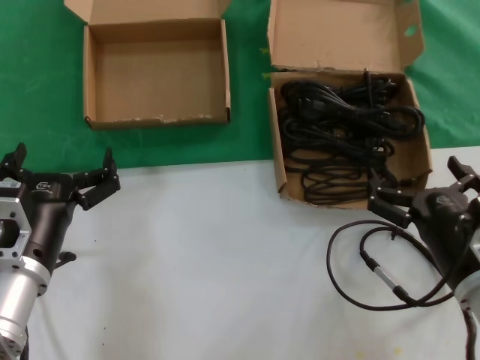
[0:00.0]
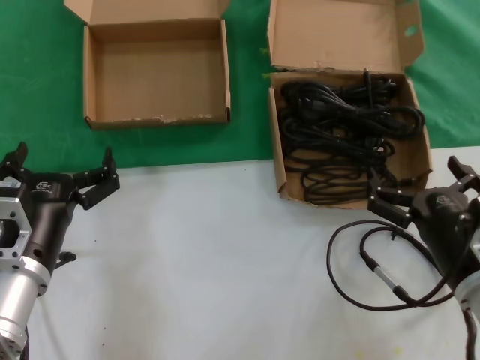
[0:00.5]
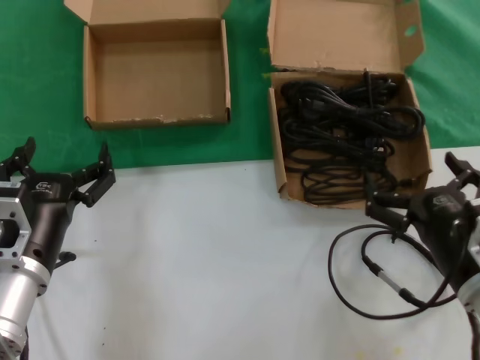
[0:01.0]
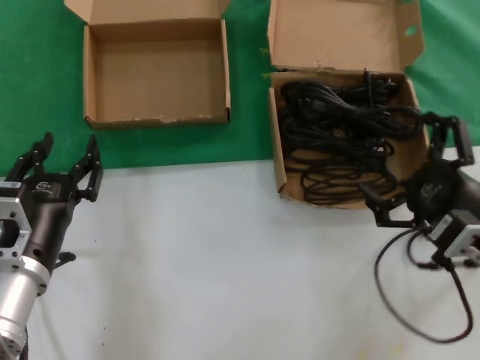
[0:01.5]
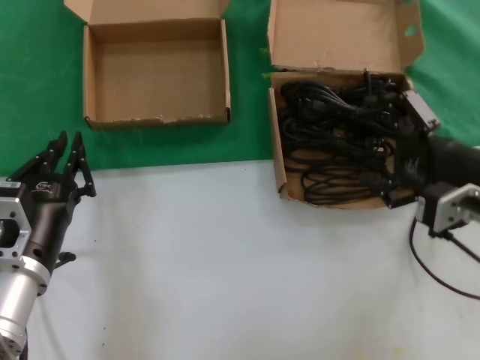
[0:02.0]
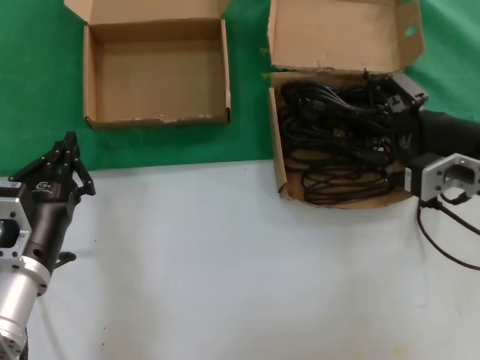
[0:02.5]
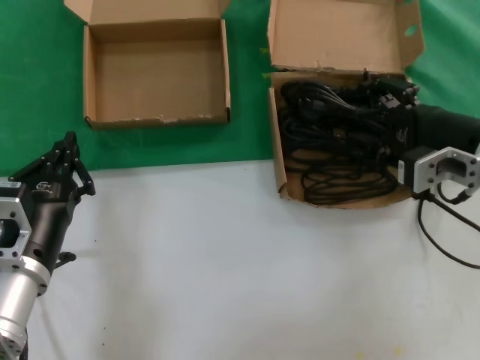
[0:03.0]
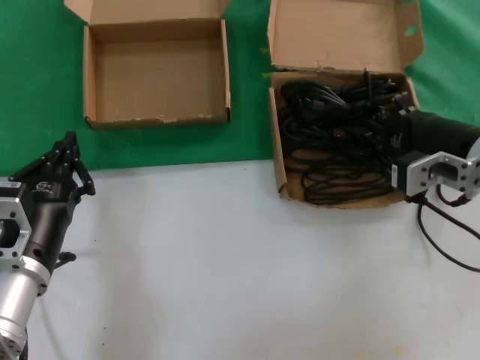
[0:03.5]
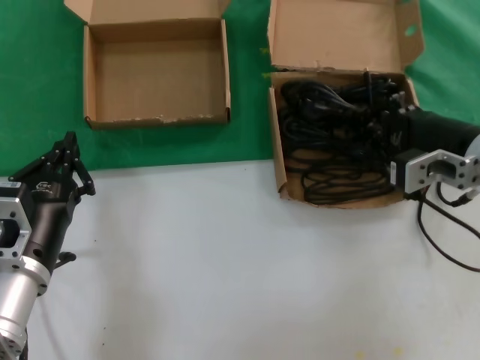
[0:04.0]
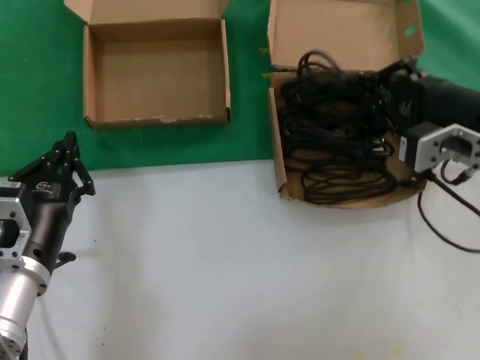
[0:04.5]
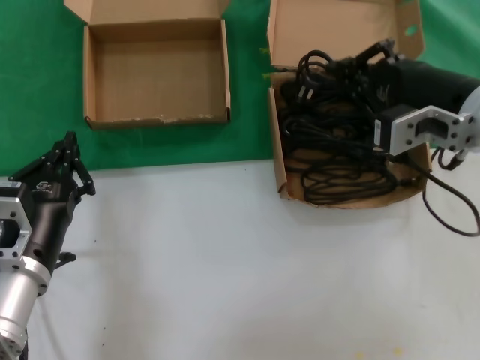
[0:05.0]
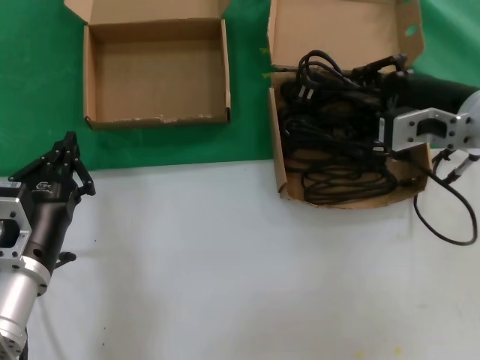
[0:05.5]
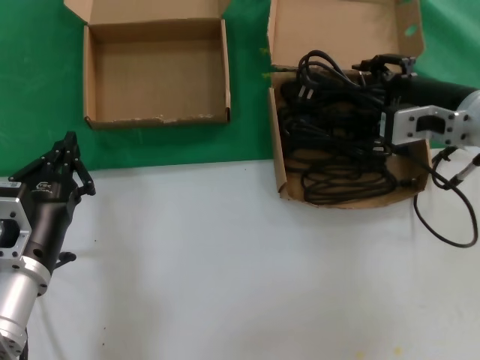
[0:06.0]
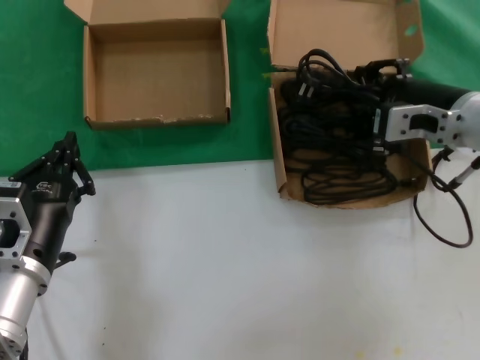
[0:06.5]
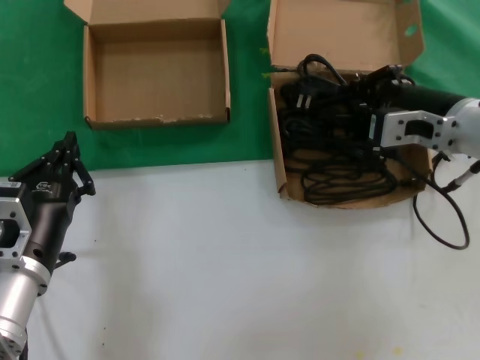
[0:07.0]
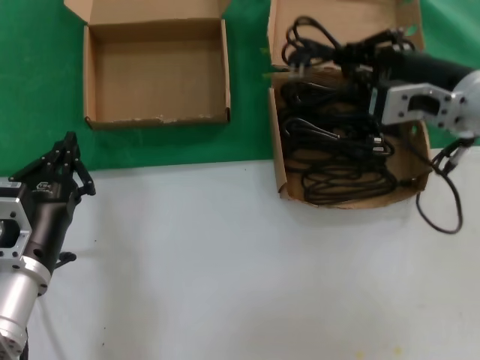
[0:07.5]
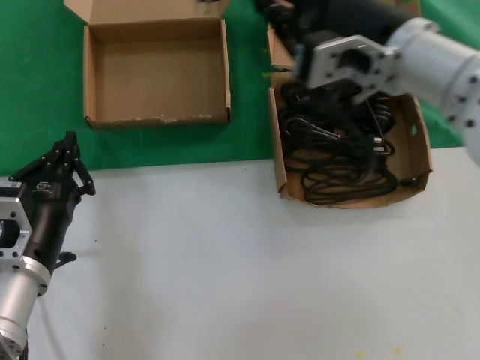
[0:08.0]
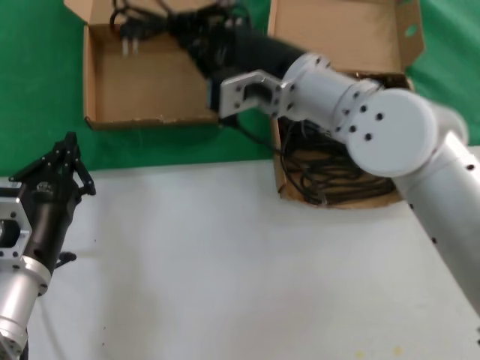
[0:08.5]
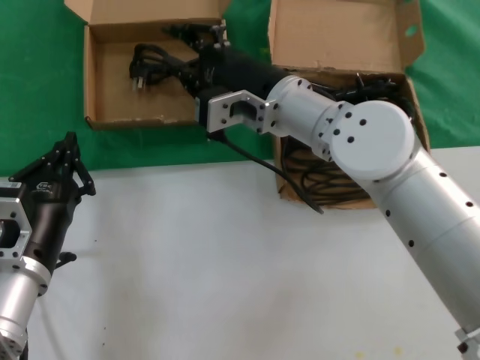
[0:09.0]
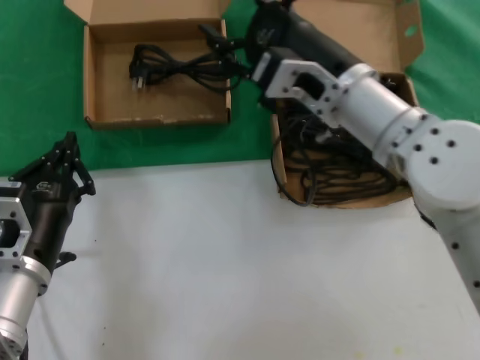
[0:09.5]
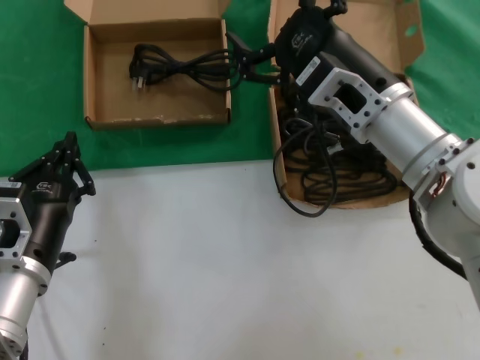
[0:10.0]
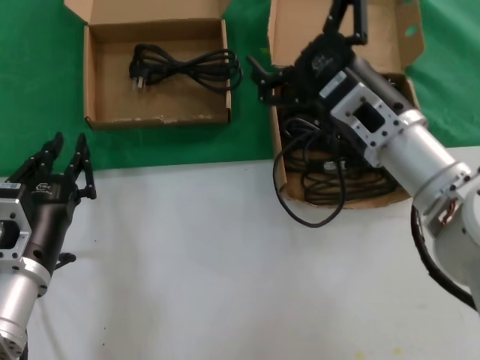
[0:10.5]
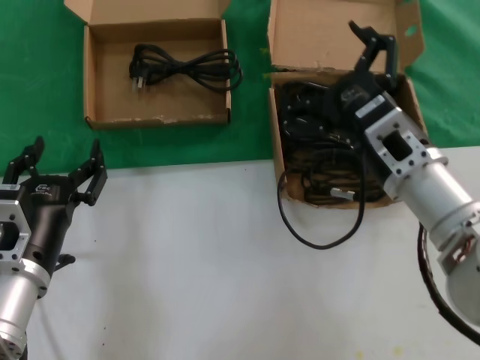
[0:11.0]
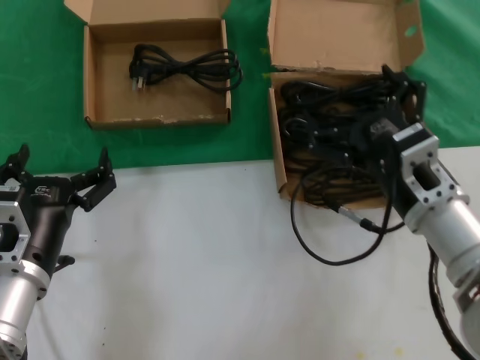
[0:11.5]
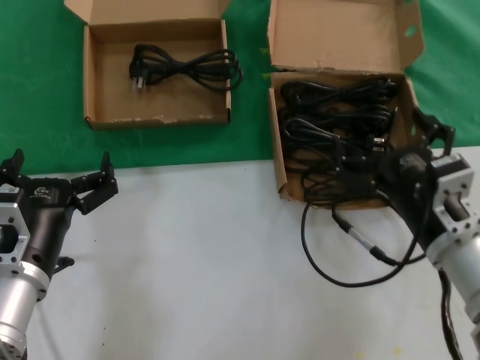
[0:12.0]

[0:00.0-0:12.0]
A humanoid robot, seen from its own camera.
Task of the whole recording: take the parts from the box containing them and put them into an empty box.
Step, 0:00.0 to 0:06.5: Grasp the data cable.
Step, 0:07.0 to 0:08.5: Place the data cable in the another box.
0:00.0 to 0:02.0: The right hand heads upward and forward, covering approximately 15 cm.
0:02.0 to 0:04.0: The right hand heads forward, covering about 5 cm.
0:06.0 to 0:08.0: The right hand moves to the left and upward, about 10 cm.
0:08.0 to 0:10.0: The right hand shifts some 10 cm downward, and goes to the left and returns, roughly 10 cm each way.
0:10.0 to 0:12.0: The right hand shifts some 15 cm downward, backward and to the right.

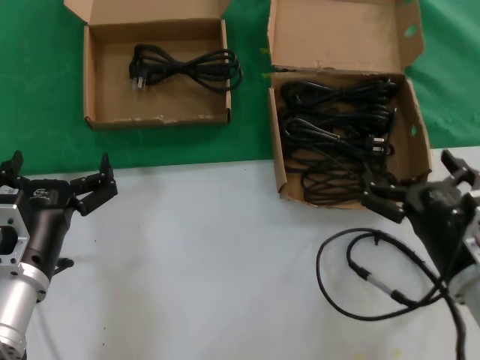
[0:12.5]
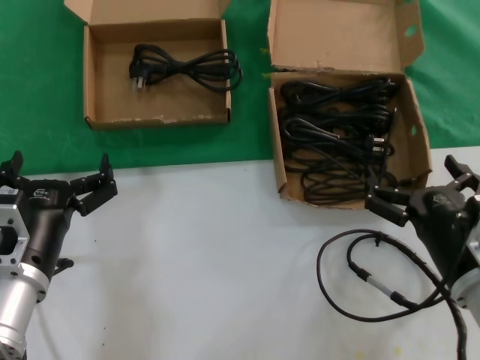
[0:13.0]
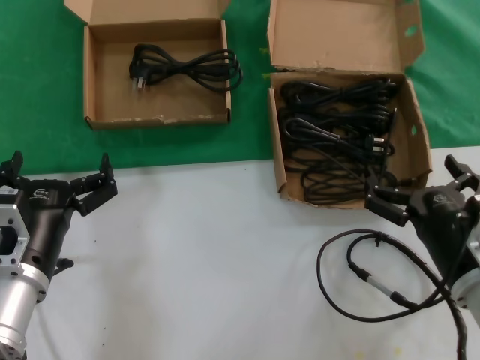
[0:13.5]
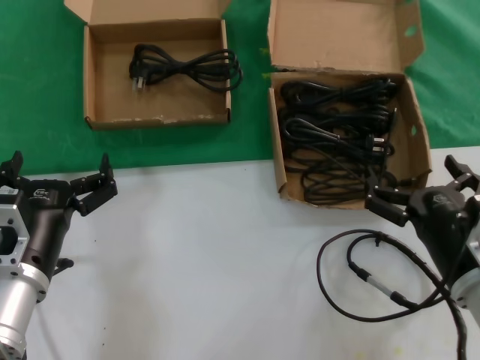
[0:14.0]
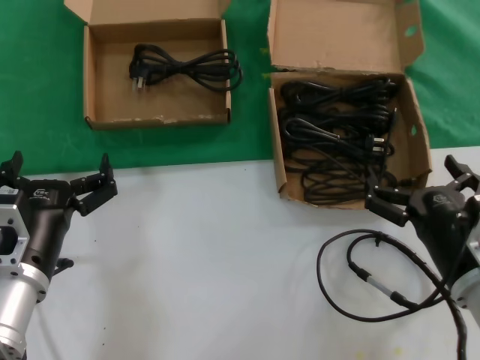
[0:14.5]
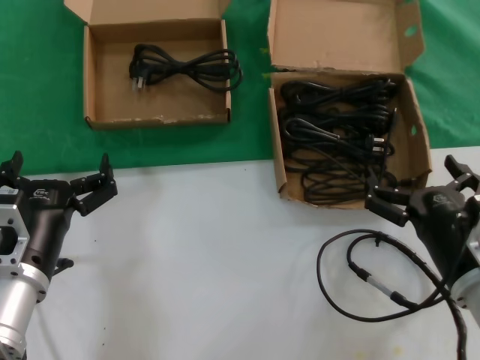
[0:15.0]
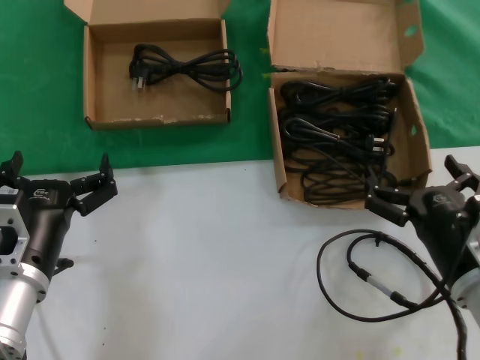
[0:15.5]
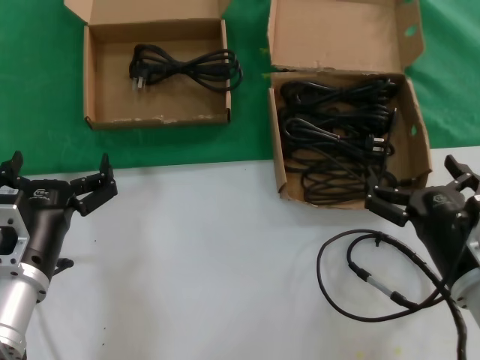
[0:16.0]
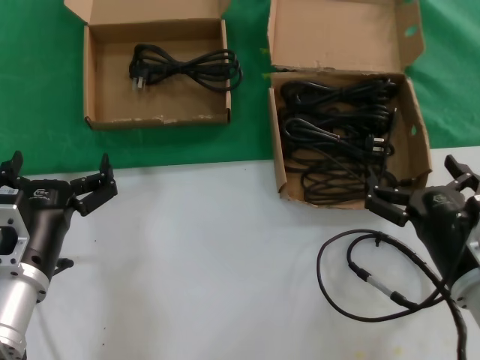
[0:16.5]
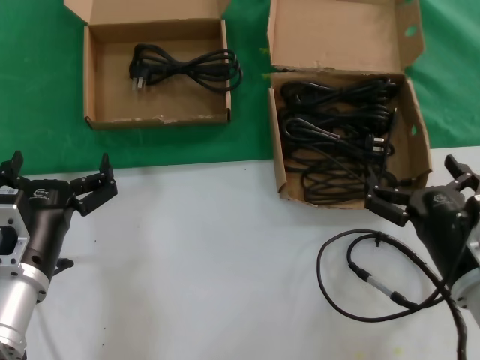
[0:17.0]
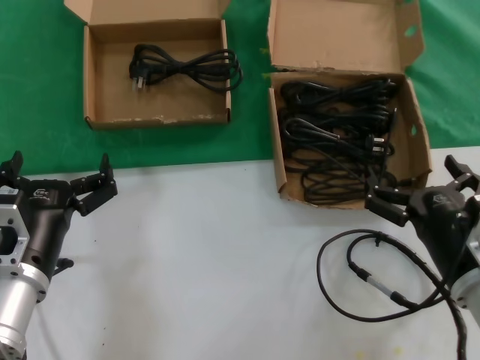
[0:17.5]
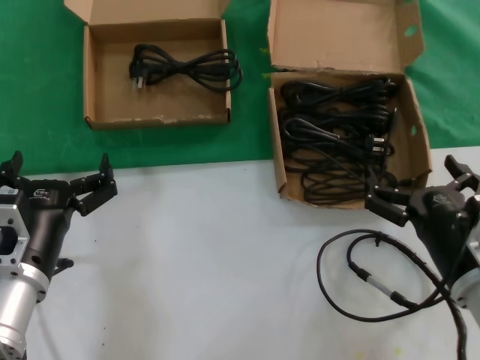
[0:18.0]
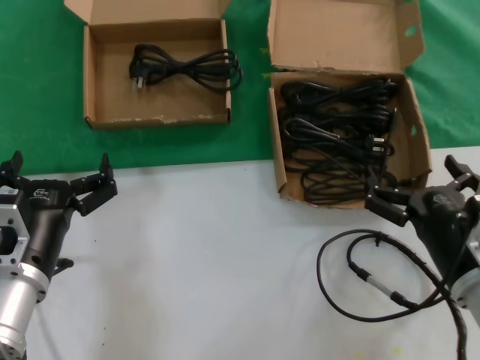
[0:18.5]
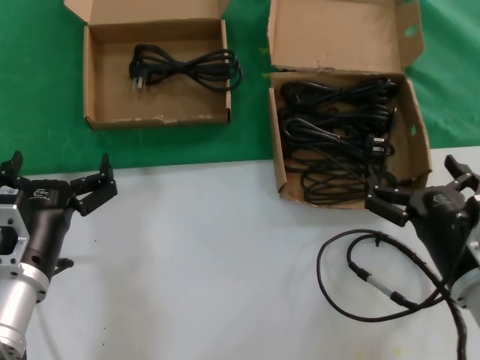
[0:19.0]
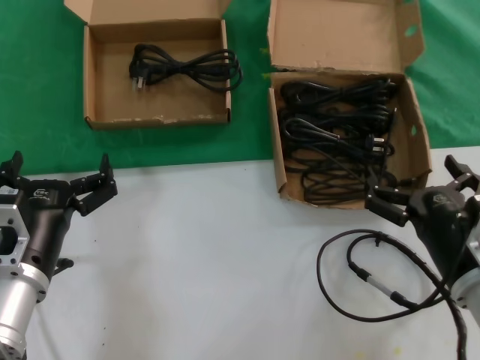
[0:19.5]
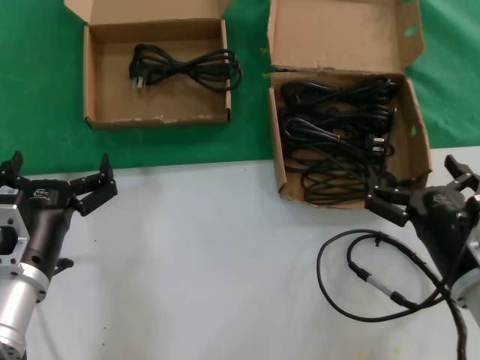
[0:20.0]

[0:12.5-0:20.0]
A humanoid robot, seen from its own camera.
Task of the whole recording: take the parts from the box containing them and put them into an empty box.
0:12.5 to 0:20.0: Neither hand changes place.

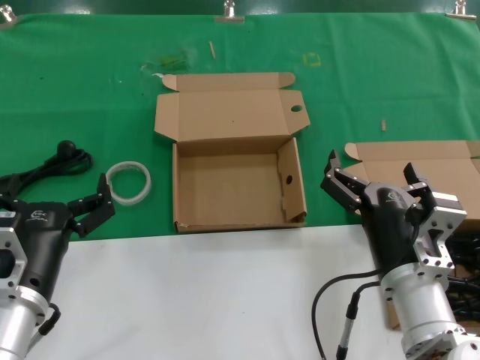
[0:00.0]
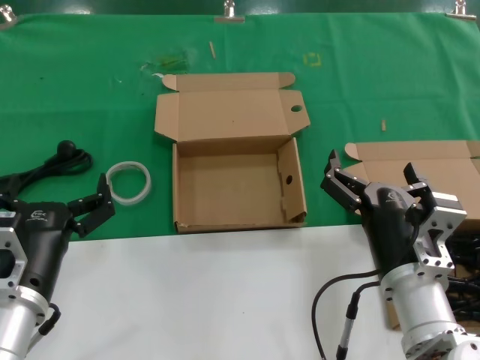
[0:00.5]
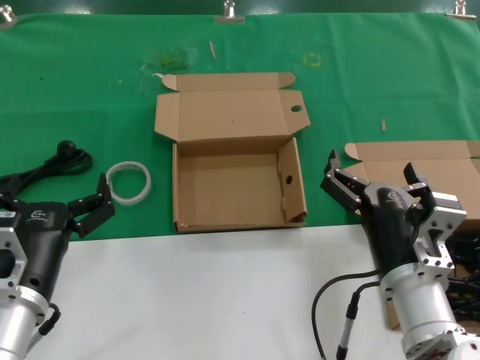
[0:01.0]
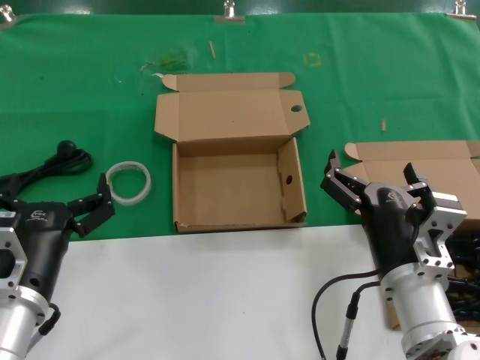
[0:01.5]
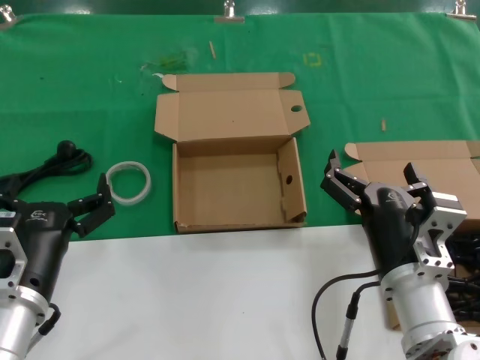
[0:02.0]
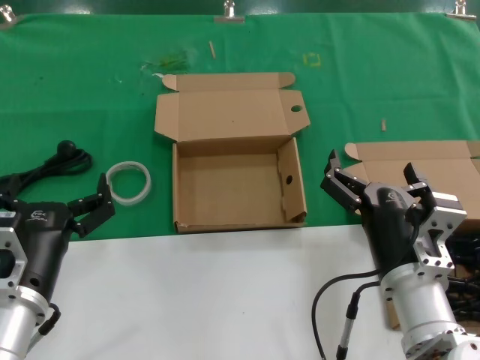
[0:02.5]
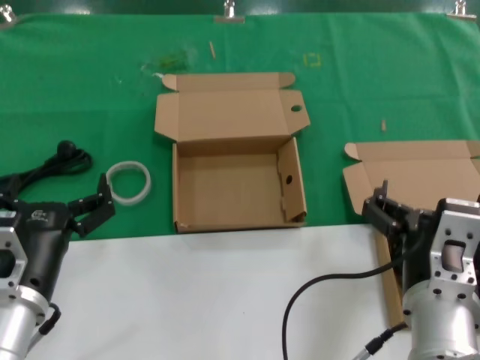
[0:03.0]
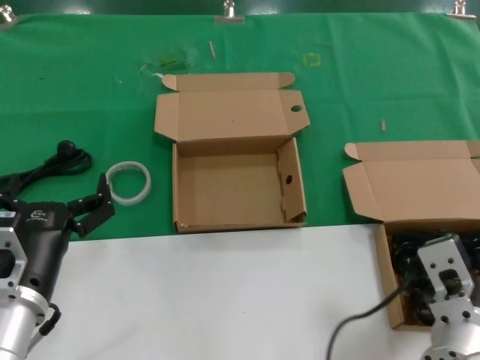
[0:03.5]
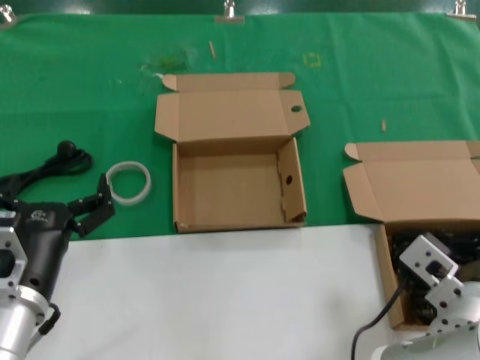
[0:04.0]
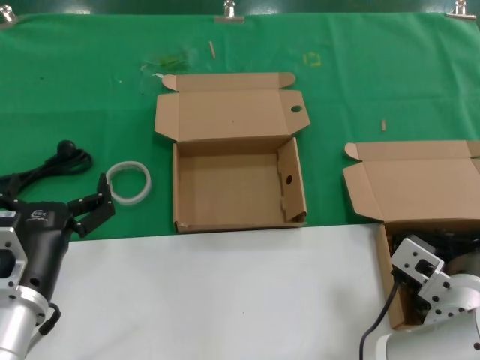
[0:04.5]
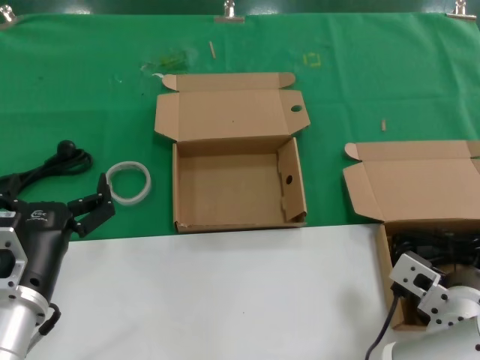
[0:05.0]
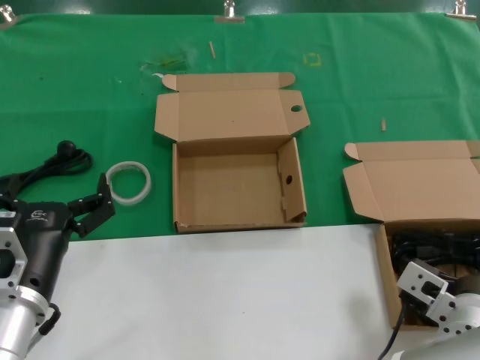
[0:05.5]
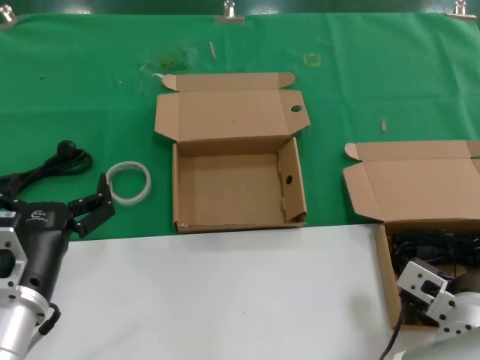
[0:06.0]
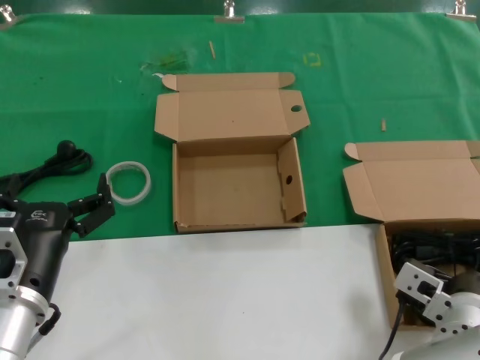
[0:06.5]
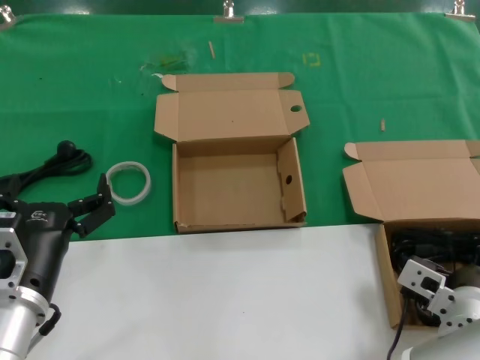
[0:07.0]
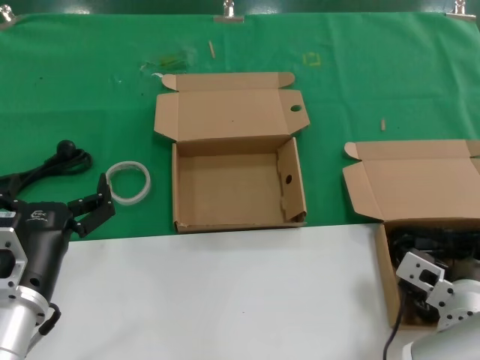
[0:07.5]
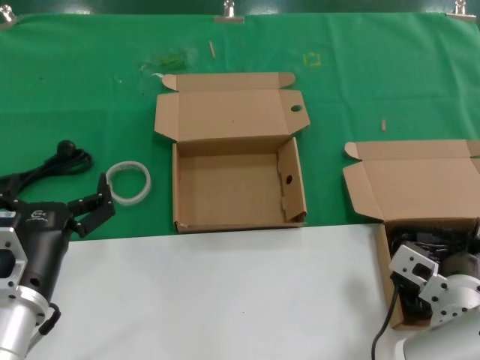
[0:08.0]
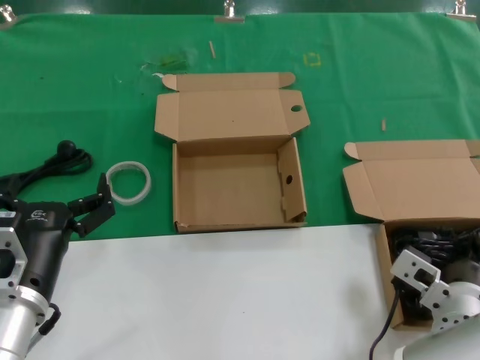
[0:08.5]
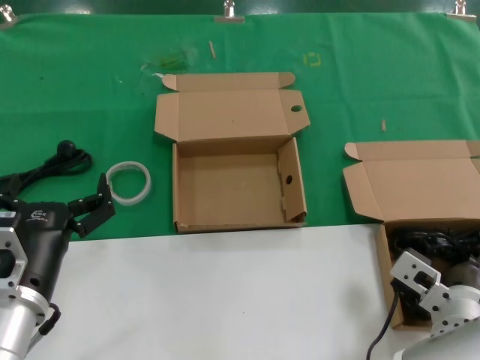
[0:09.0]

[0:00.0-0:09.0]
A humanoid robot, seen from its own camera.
Task of the whole recording: take the parts from the box containing them and put them into an empty box.
Step, 0:00.0 to 0:08.0: Grasp the data cable.
0:00.0 to 0:02.0: Both hands stay about where they are.
0:04.5 to 0:07.0: The right hand is displaced downward by roughly 5 cm.
0:07.0 to 0:09.0: There are only small adjustments of the hands.
